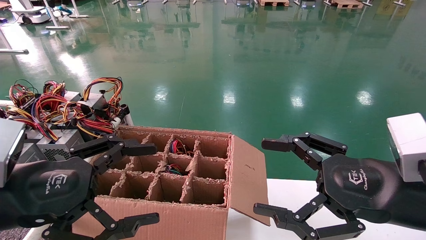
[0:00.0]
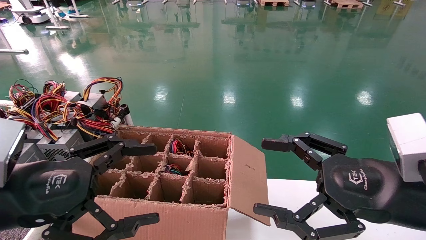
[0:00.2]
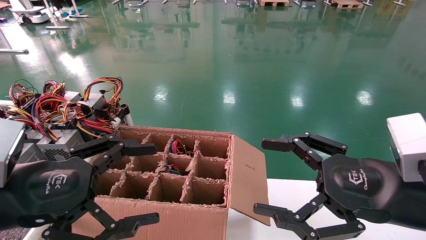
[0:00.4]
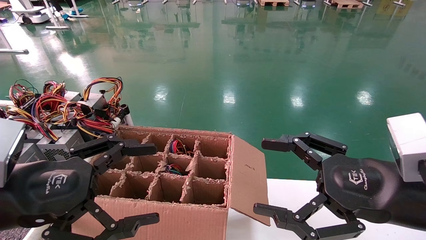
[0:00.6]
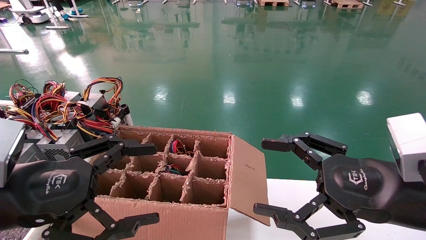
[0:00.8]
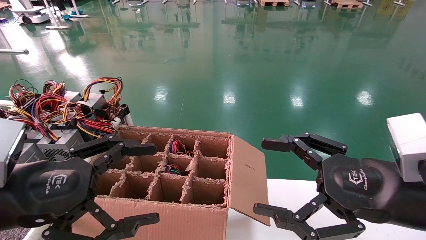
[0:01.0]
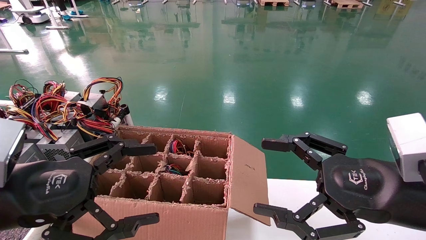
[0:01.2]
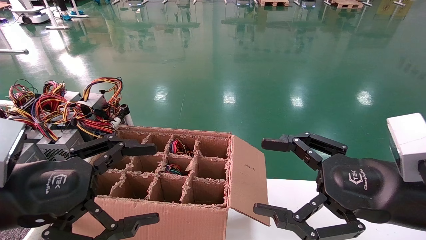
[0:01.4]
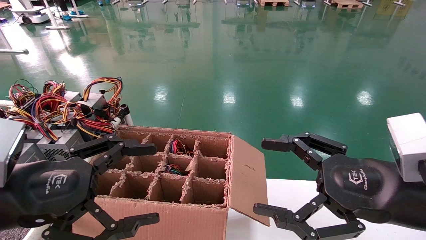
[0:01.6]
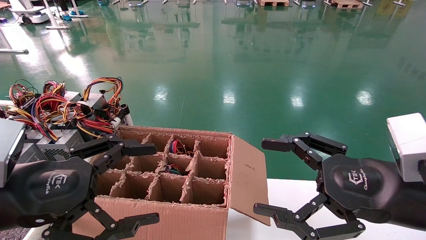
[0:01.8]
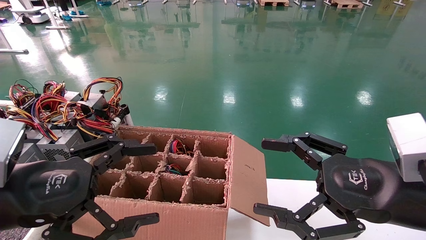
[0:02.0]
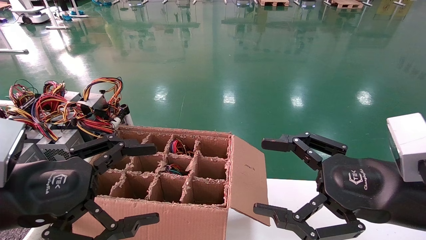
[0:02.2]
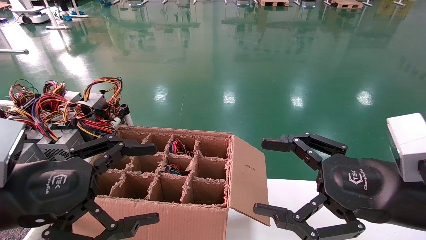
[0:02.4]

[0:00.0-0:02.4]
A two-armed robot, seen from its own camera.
0:00.0 to 0:02.4: The two grippers keep their place.

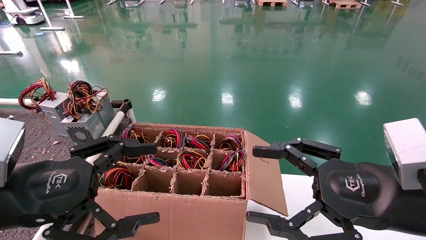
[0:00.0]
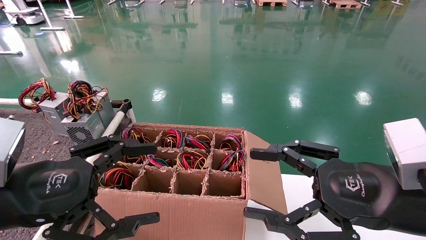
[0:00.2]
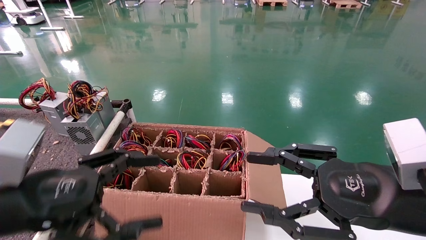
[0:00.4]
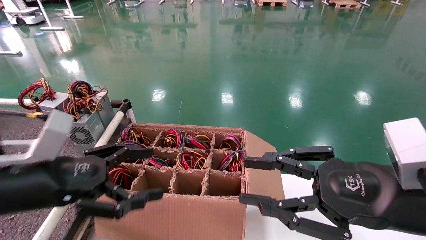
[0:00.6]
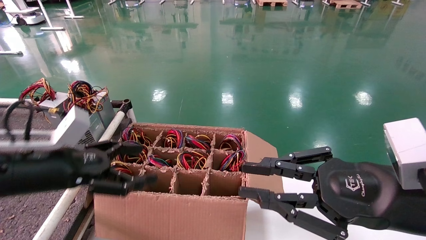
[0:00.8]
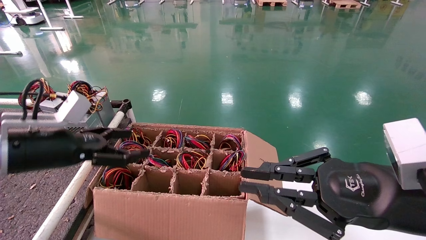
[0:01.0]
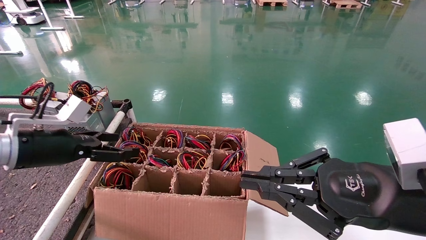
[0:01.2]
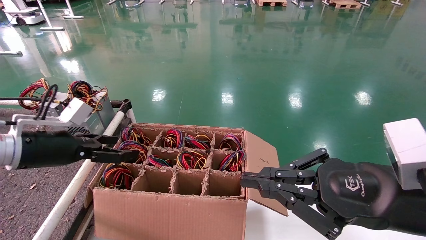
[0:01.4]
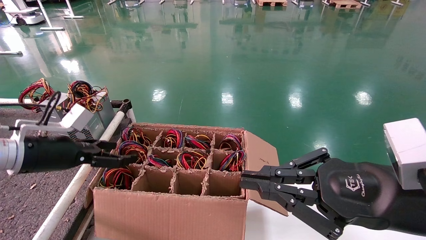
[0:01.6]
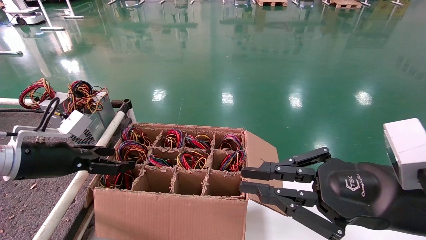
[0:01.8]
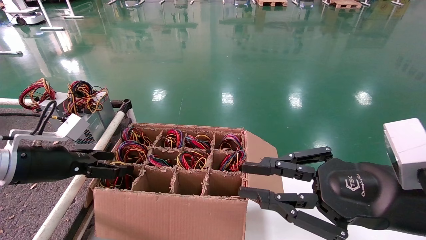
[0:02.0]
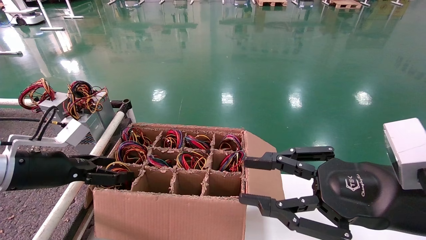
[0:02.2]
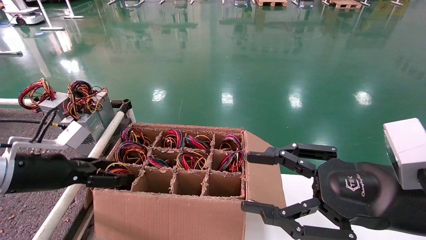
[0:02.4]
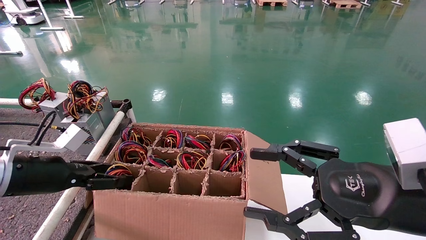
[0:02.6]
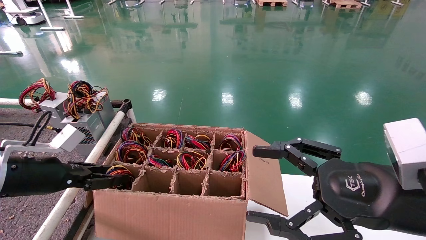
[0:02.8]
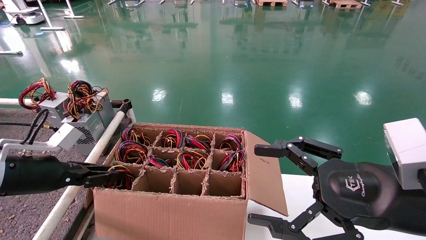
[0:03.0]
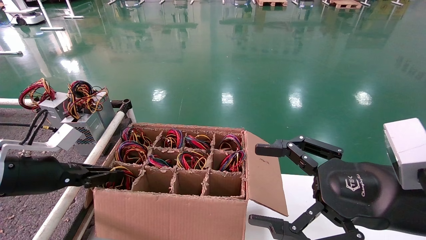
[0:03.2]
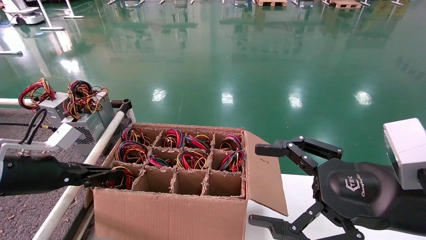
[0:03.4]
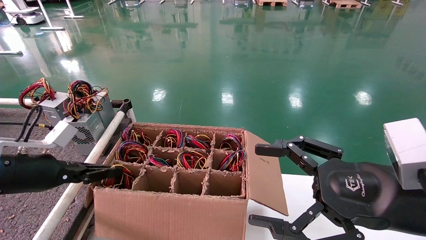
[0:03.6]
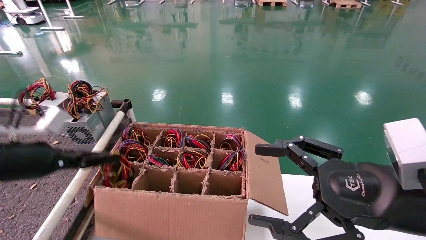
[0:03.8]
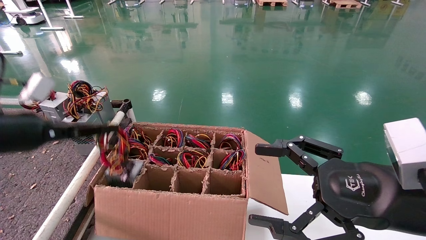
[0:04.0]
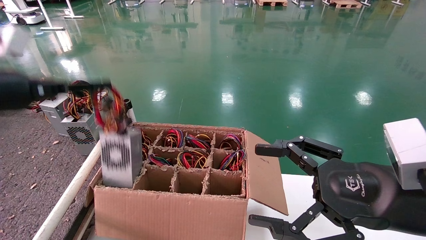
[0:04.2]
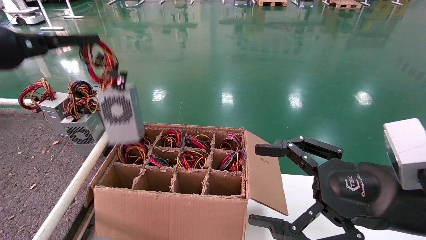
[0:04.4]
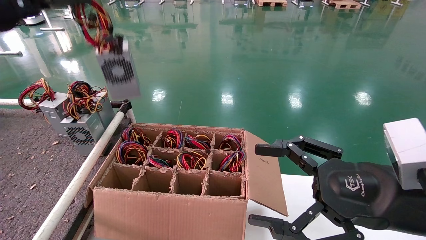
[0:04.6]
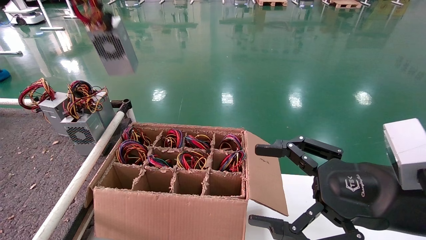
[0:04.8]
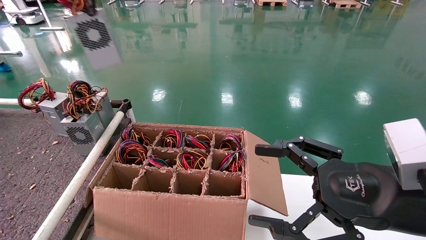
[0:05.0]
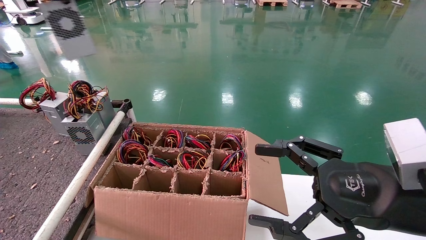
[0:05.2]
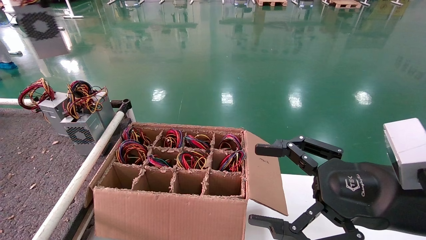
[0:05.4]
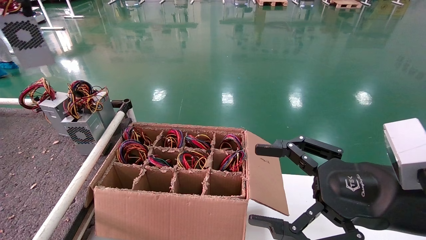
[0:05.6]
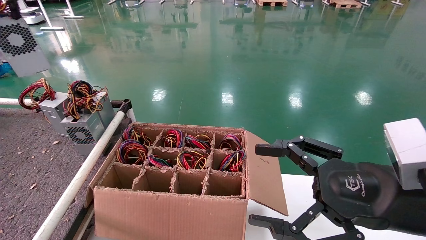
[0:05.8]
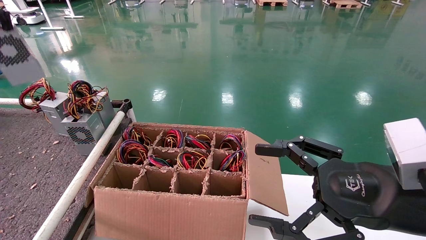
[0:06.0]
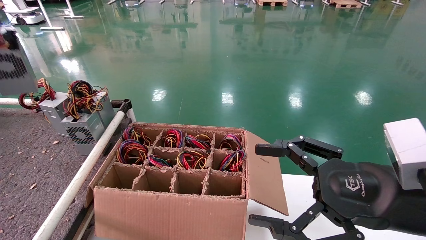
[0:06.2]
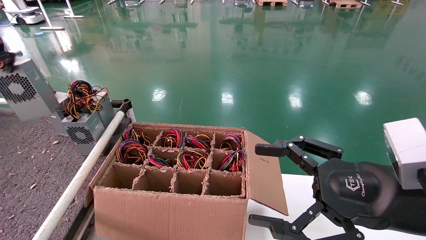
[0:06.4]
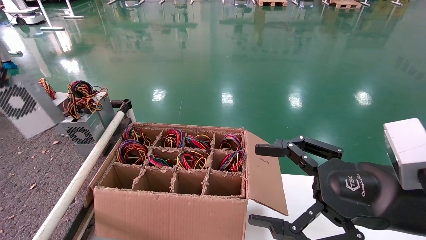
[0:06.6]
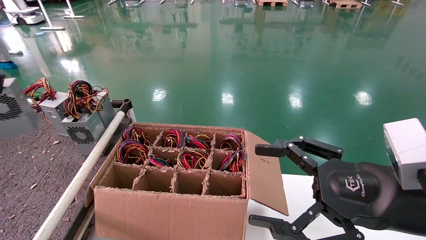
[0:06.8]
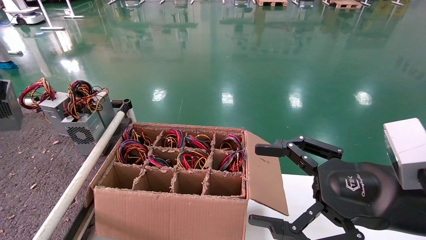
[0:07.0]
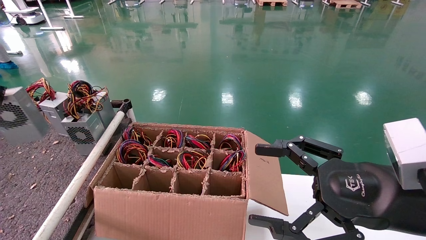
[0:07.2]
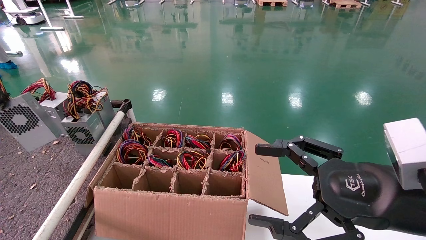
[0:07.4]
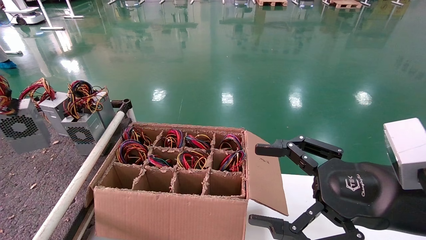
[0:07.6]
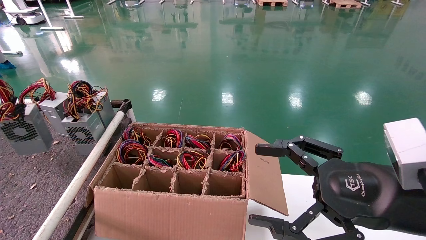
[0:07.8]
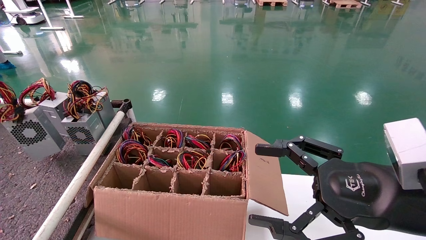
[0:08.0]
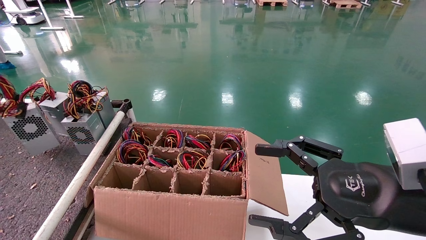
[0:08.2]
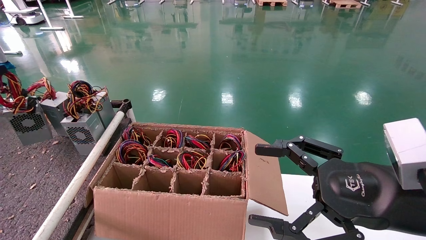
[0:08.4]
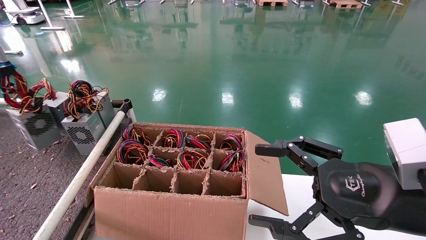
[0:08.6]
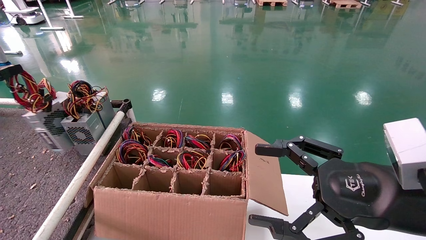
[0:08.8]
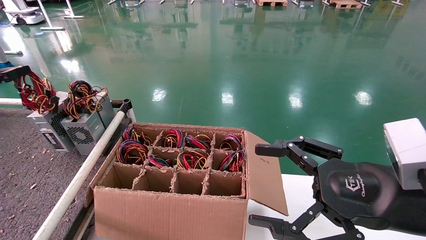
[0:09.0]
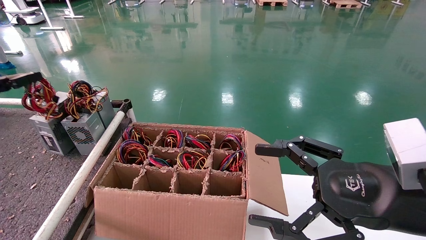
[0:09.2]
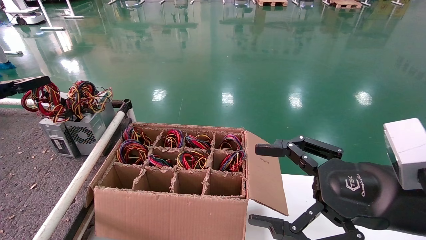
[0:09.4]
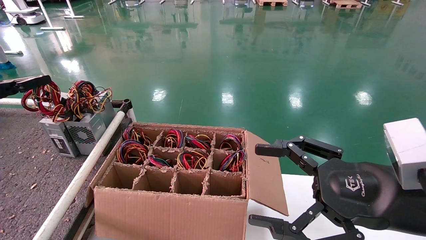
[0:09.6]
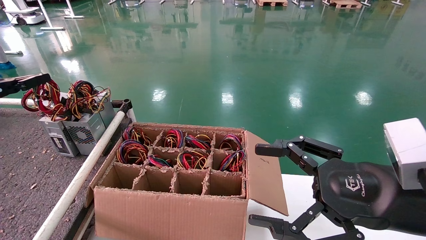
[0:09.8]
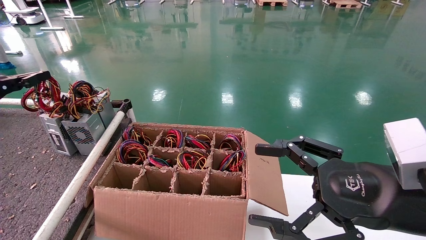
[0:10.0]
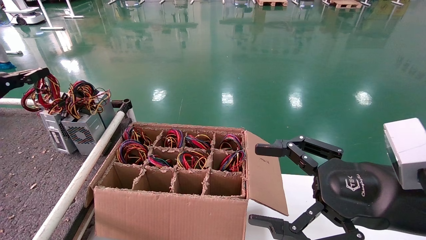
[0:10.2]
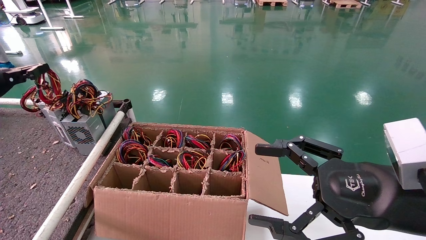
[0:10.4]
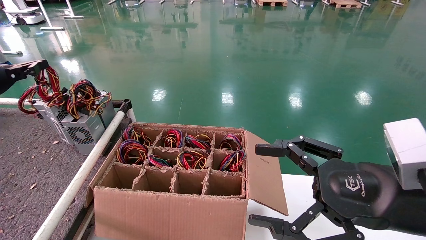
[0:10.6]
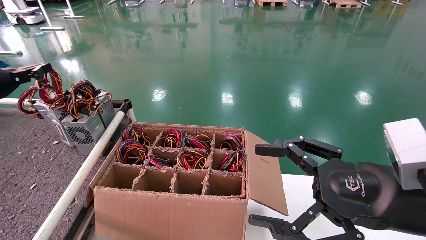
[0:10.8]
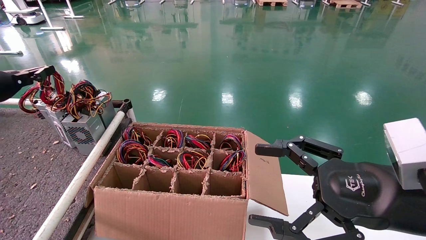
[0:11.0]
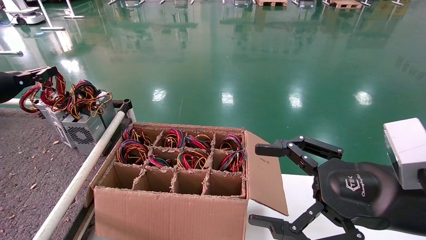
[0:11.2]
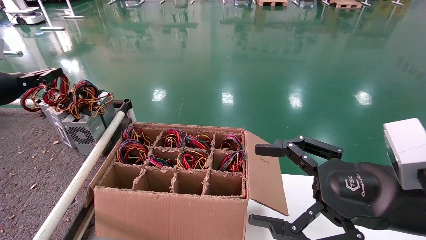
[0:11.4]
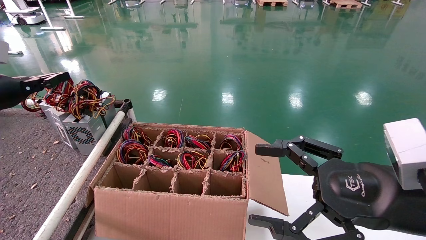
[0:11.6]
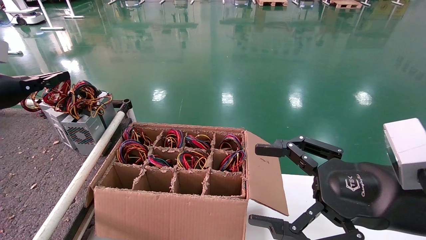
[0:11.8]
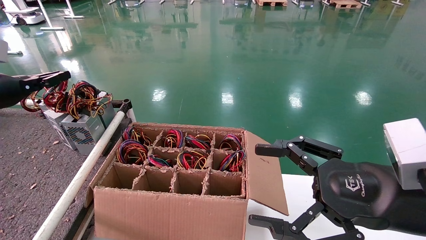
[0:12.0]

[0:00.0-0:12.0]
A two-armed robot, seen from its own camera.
Step, 0:01.0 to 0:03.4: Grab and lift the power supply from the large box.
0:00.0 to 0:01.6: The left gripper moves forward and to the left, roughly 15 cm. The right gripper closes.
0:01.6 to 0:03.0: The right gripper opens, while the left gripper closes.
0:03.0 to 0:04.4: The left gripper heads upward, covering about 20 cm.
0:04.4 to 0:06.0: The left gripper heads to the left and upward, covering roughly 15 cm.
0:06.0 to 0:07.6: The left gripper moves downward, some 15 cm.
0:07.6 to 0:09.0: The left gripper is displaced forward and to the right by roughly 10 cm.
0:09.0 to 0:10.4: The grippers make only small movements.
0:10.4 to 0:12.0: There are only small adjustments of the grippers.

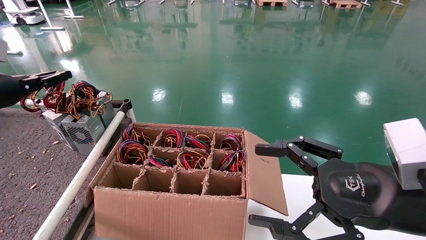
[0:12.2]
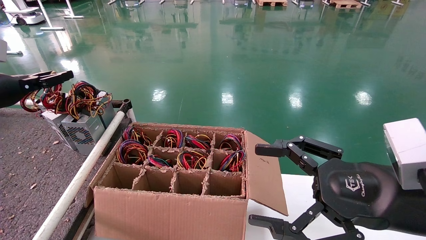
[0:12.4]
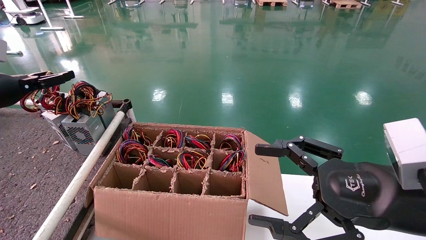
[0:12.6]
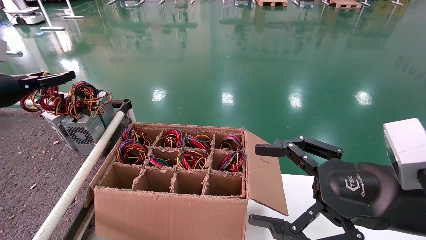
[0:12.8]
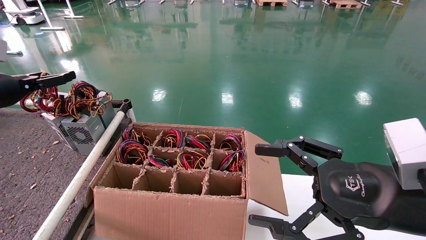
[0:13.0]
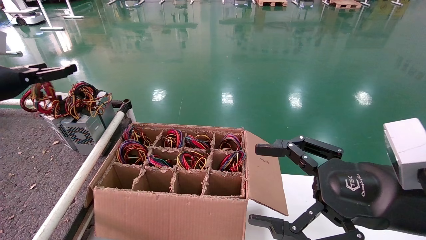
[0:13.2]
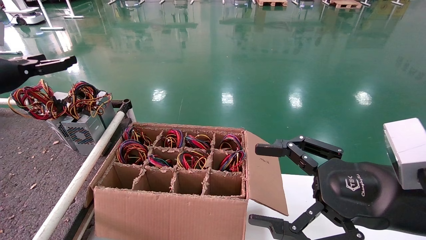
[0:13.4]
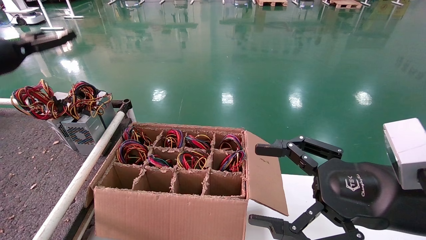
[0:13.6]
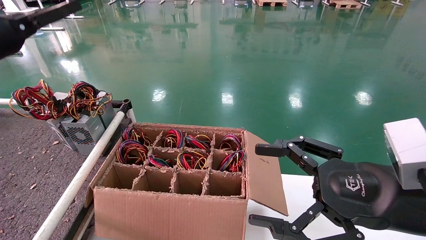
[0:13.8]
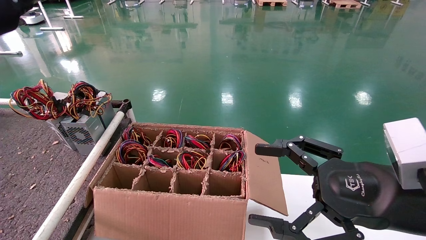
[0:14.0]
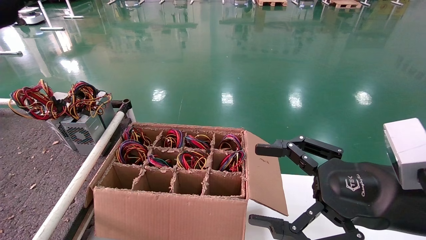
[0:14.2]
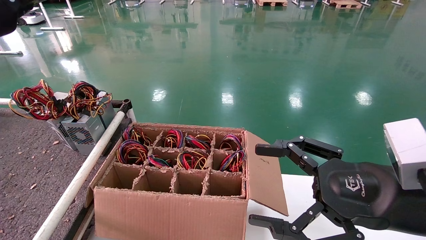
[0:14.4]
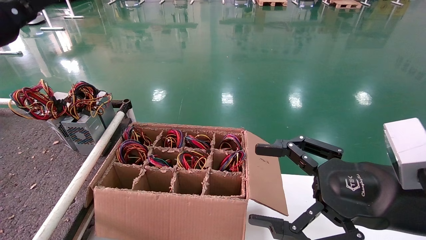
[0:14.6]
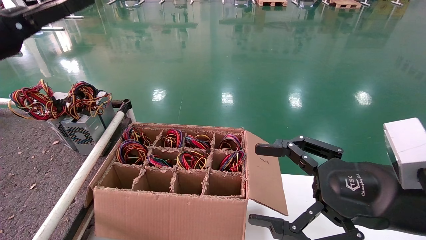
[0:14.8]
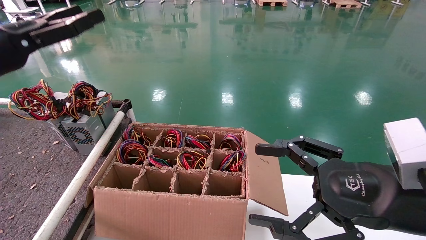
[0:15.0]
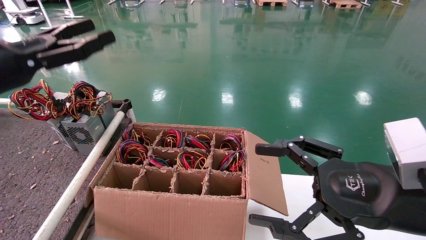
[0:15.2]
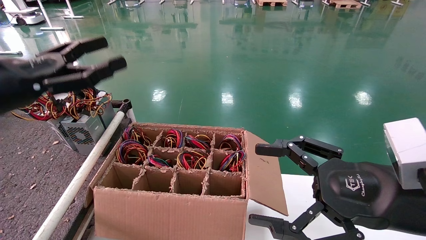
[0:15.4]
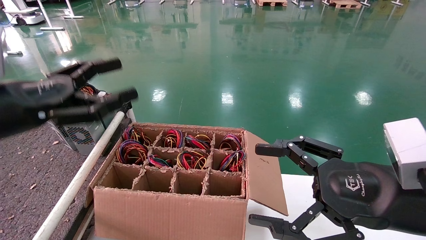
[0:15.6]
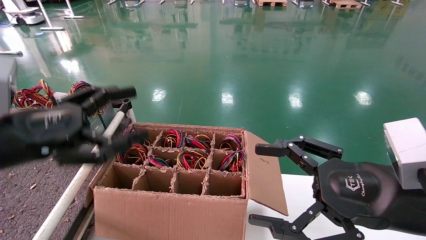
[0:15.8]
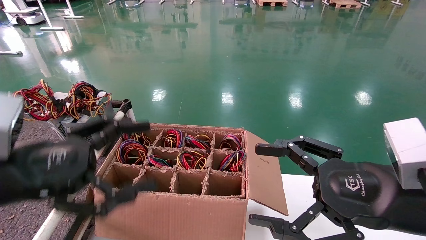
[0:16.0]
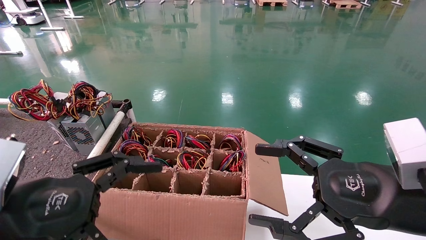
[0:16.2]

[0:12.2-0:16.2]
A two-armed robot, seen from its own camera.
0:12.2 to 0:13.6: The left gripper moves upward, roughly 5 cm, and opens up.
0:13.6 to 0:14.8: The left gripper moves backward and to the right, roughly 10 cm.
0:14.8 to 0:16.2: The left gripper is displaced downward, backward and to the right by some 25 cm.
